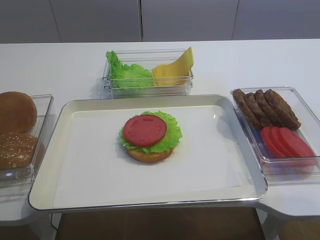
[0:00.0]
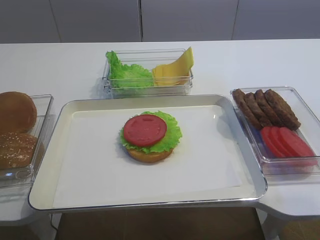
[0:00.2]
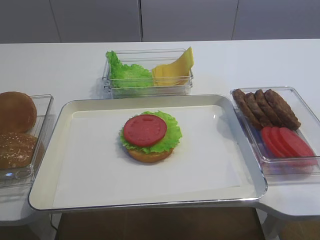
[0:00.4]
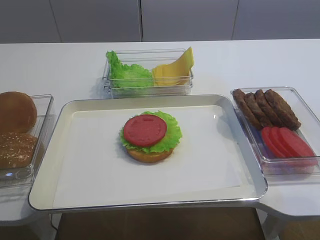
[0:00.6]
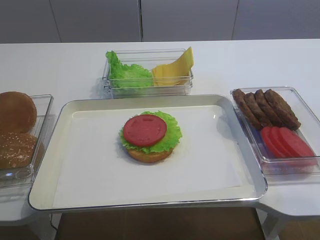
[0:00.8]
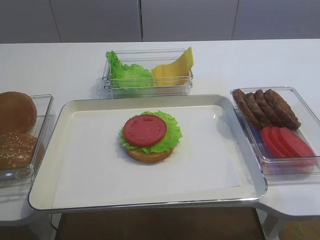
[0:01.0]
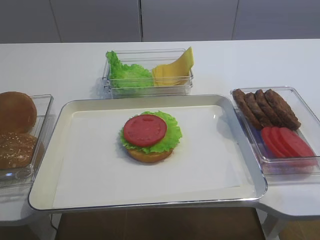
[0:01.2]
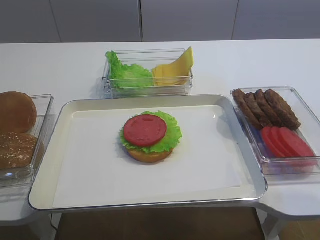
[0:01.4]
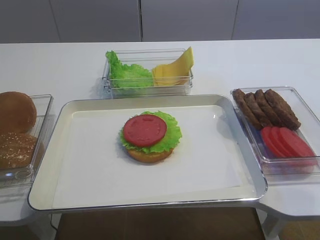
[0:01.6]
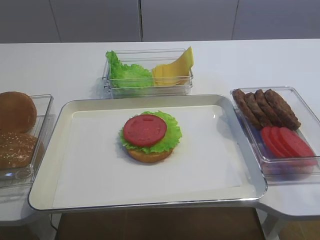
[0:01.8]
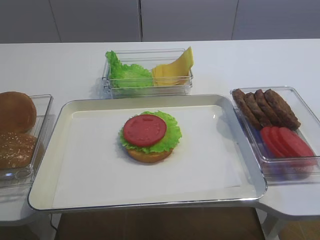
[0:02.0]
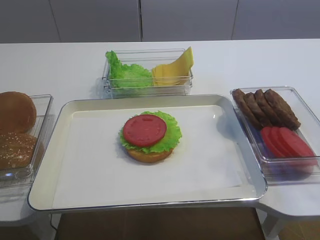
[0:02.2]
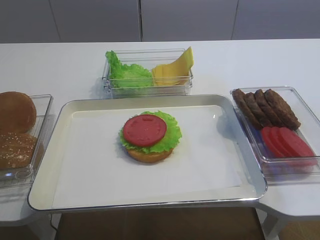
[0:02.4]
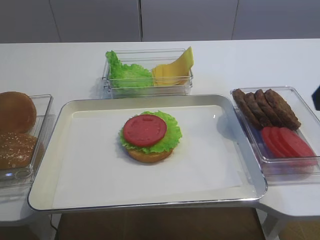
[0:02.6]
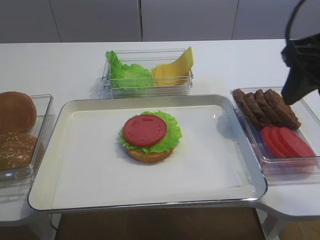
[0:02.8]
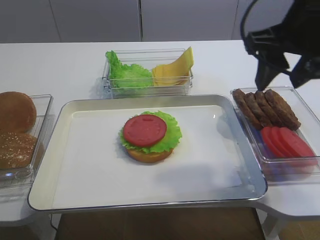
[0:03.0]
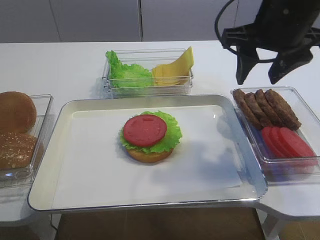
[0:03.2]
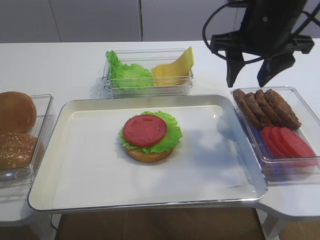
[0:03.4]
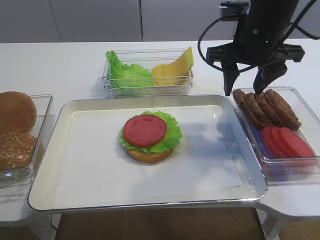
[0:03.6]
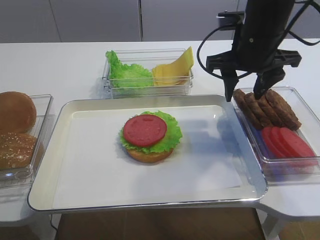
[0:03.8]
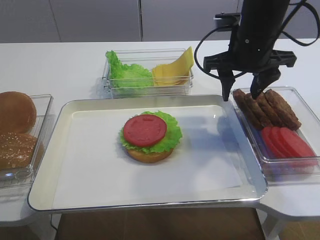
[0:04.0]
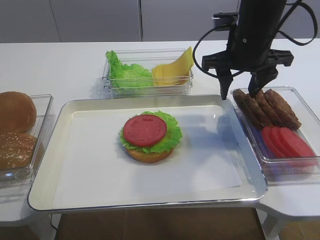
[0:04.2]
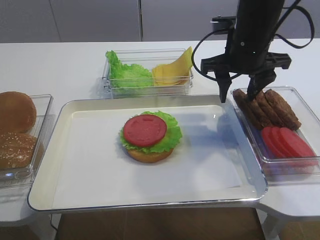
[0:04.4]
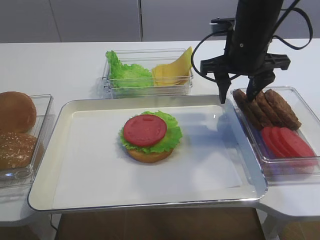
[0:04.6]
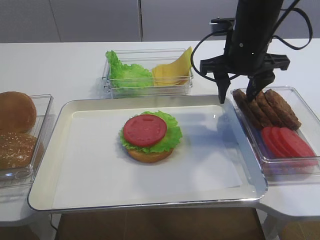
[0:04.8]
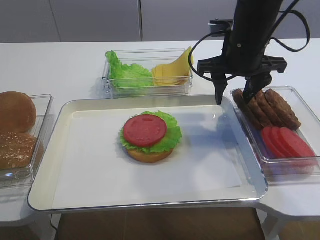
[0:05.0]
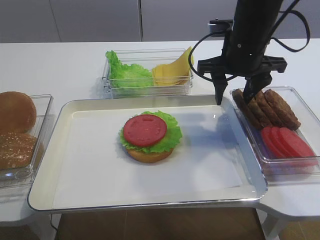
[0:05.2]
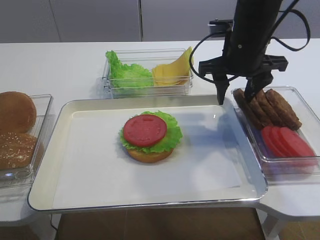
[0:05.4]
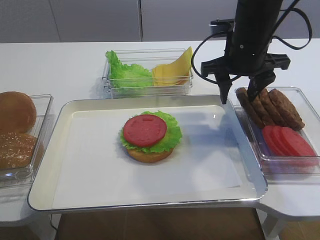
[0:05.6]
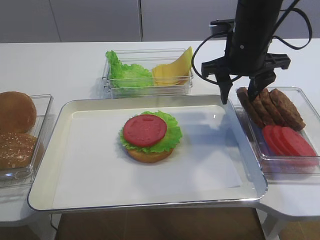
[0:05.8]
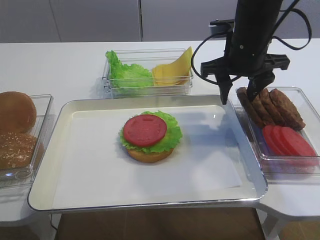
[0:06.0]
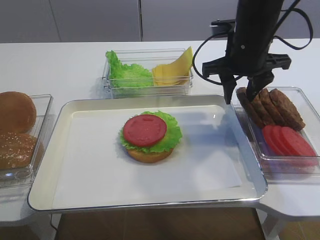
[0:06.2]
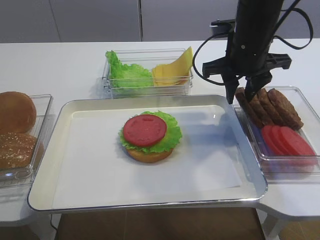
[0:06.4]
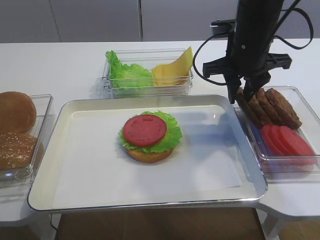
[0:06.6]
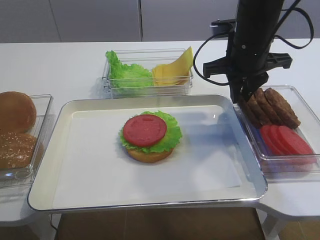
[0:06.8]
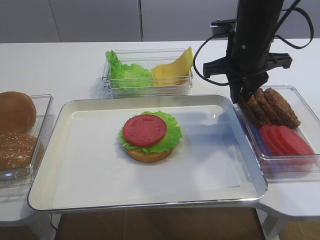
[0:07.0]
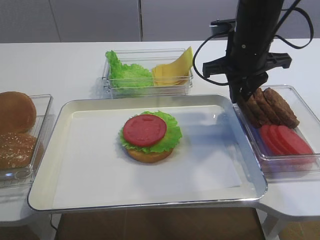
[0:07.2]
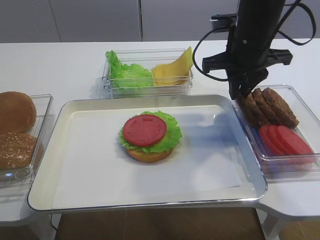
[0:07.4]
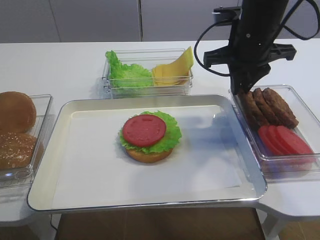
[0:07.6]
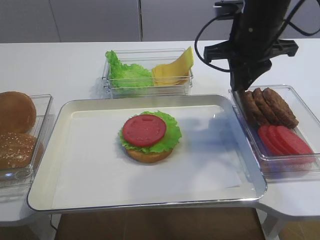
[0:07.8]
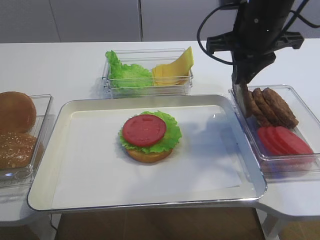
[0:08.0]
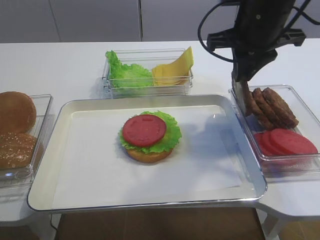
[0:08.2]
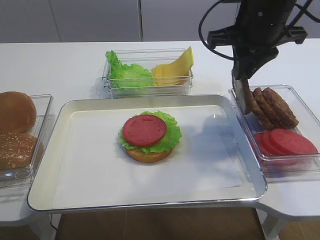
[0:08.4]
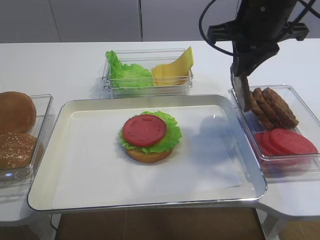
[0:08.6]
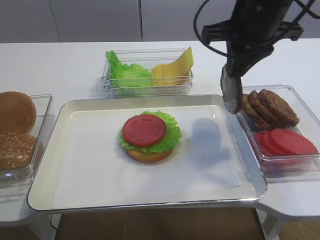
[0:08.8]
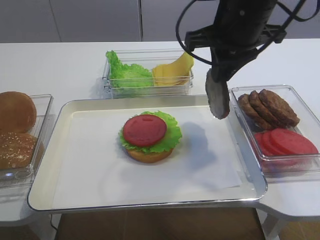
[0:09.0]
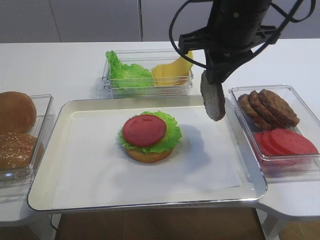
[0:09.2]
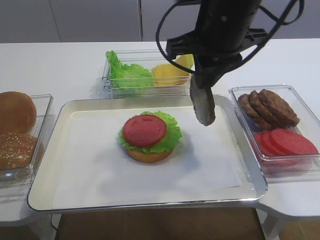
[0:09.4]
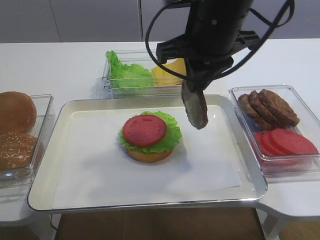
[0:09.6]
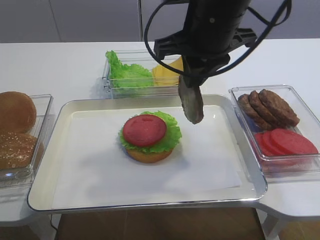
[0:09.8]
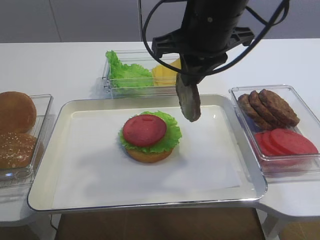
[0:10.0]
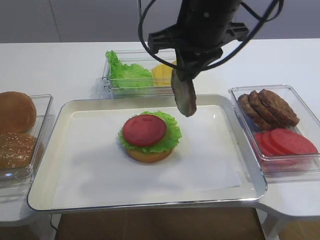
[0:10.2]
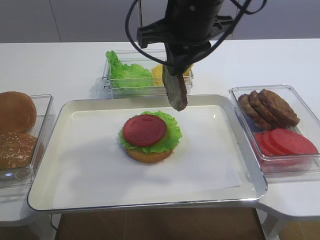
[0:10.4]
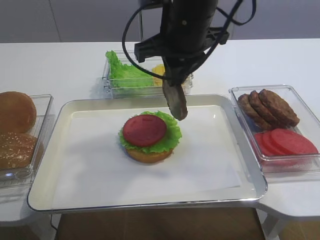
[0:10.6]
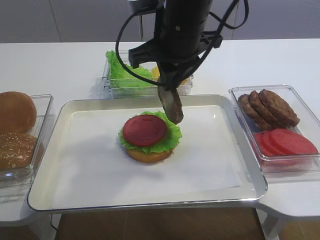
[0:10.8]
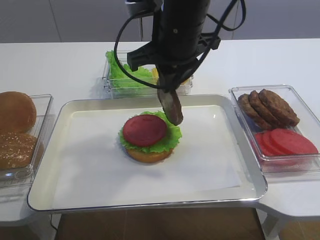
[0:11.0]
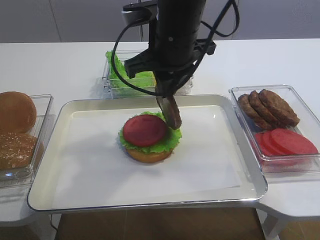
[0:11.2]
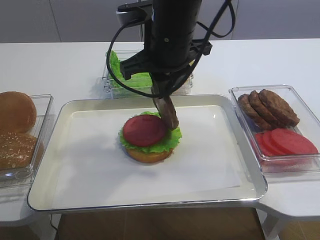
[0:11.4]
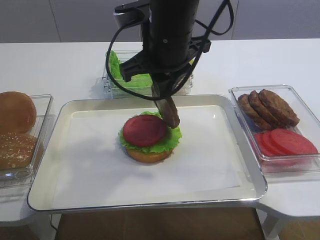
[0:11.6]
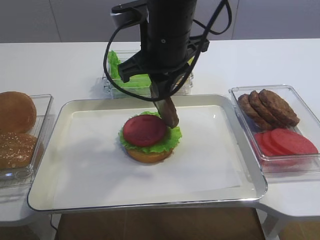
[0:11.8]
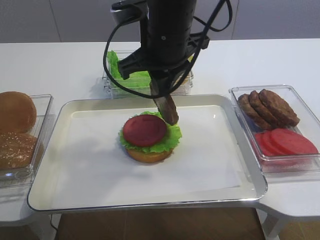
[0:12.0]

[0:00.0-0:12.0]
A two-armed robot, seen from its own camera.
Step, 0:00.0 to 0:08.8: Pick up the cutlet with the right gripper.
0:01.6 to 0:03.0: The right gripper travels forward by roughly 25 cm.
0:03.0 to 0:04.4: The right gripper is displaced forward and downward by roughly 15 cm.
0:04.4 to 0:06.0: Both grippers stay put.
0:06.0 to 0:07.6: The right gripper closes.
0:07.6 to 0:09.0: The right gripper ends up approximately 5 cm from where it was.
0:09.0 to 0:10.4: The right gripper goes about 5 cm to the left.
0:10.4 to 0:12.0: The right gripper ends up approximately 5 cm from where it was.

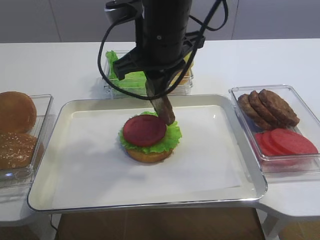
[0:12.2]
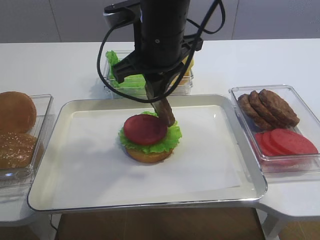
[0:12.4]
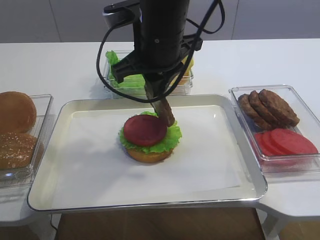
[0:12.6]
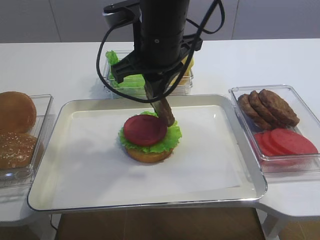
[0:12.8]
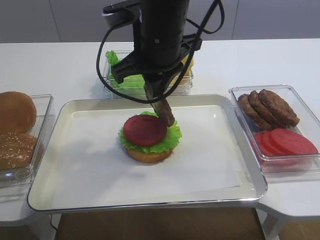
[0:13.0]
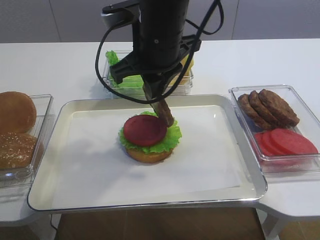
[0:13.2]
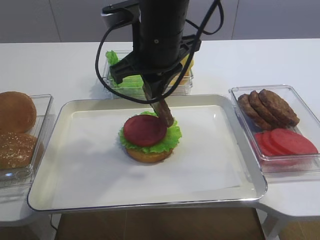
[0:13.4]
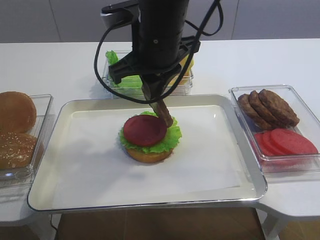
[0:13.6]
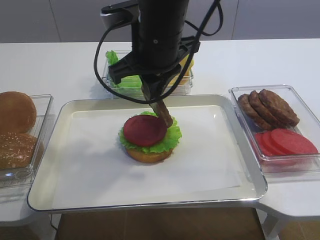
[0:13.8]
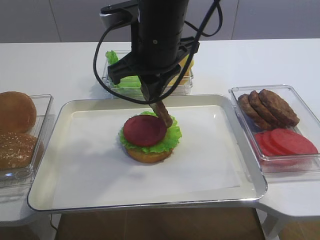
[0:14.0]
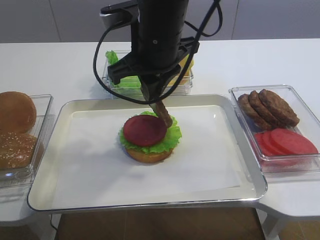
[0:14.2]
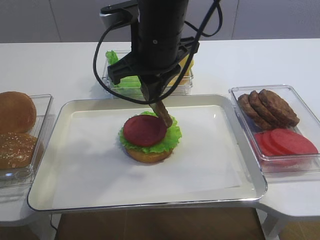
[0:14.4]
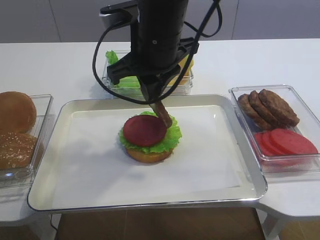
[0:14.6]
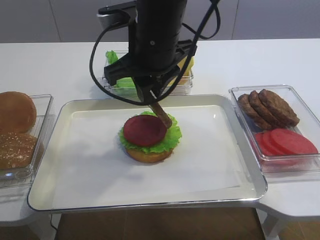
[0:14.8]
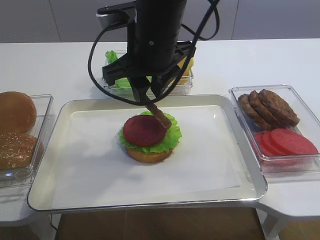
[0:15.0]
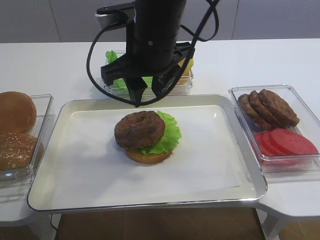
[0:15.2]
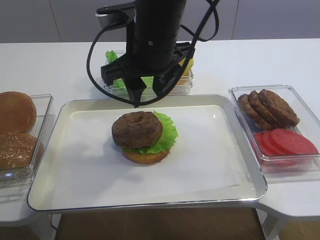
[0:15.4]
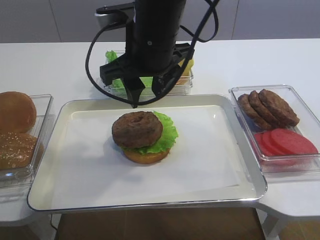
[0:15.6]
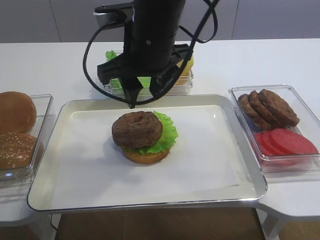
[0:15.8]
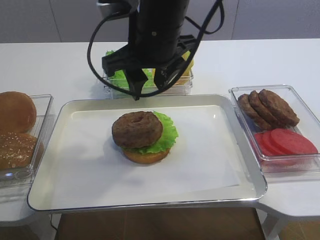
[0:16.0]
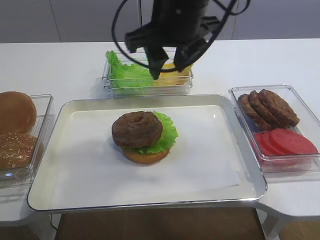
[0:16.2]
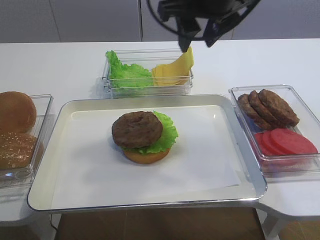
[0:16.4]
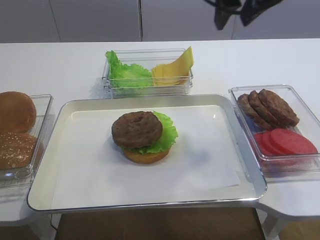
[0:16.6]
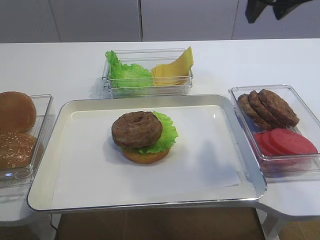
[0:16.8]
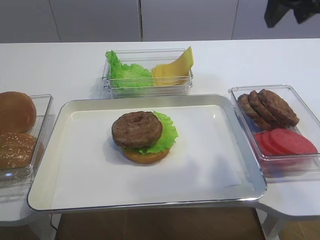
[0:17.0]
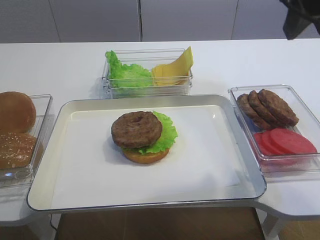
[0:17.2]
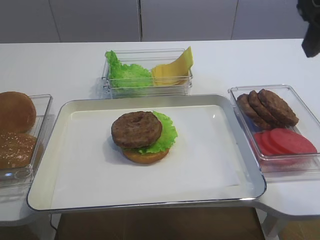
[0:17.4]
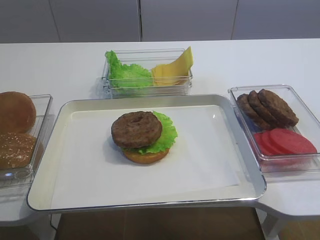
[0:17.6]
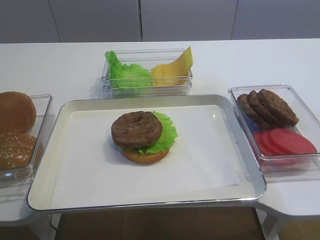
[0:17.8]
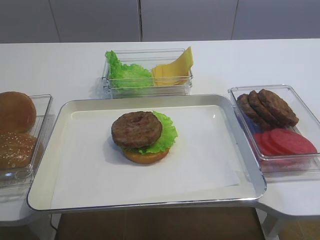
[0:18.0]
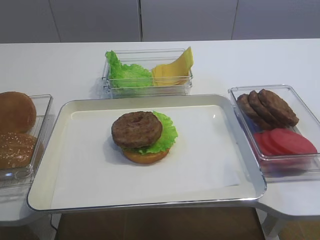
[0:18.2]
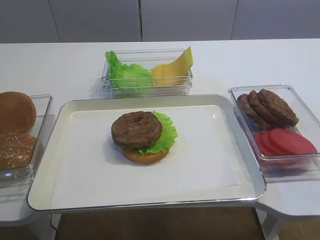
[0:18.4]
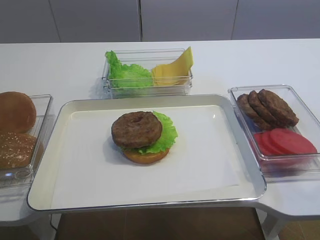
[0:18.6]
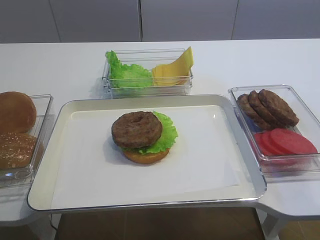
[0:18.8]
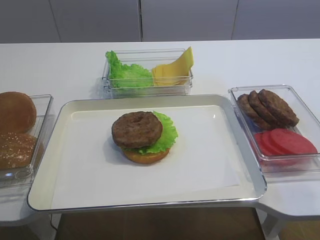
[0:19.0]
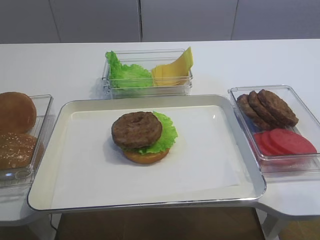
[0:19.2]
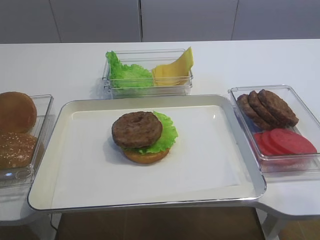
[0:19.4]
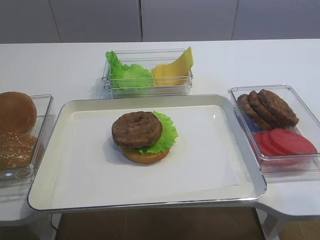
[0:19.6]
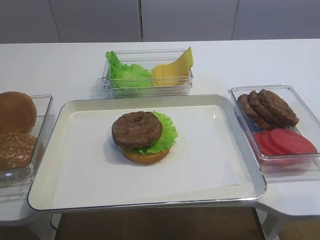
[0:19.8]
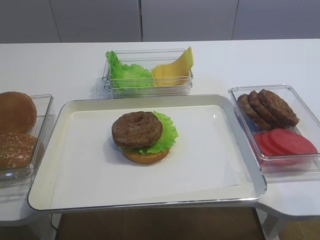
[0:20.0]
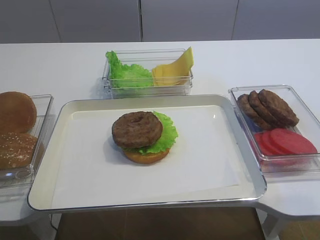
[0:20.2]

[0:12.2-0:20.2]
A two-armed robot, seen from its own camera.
Step, 0:12.2 to 0:15.2: Place the cutlet on the tomato slice with the right gripper.
0:12.2 to 0:13.8: The two grippers keep their place.
0:13.8 to 0:15.4: The right gripper opens.
0:15.4 to 0:17.0: The right gripper goes roughly 20 cm to the right and upward.
0:17.0 to 0:18.6: The right gripper heads backward, covering some 25 cm.

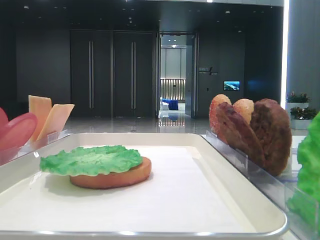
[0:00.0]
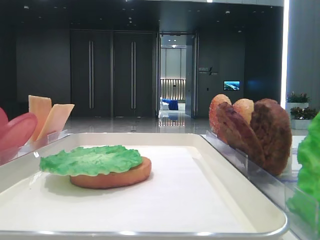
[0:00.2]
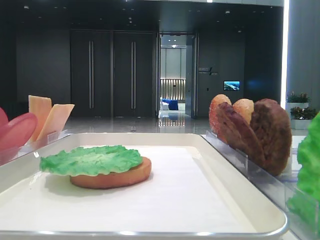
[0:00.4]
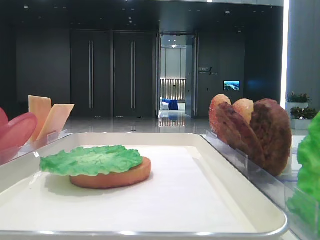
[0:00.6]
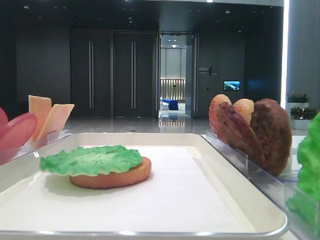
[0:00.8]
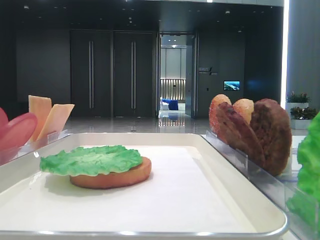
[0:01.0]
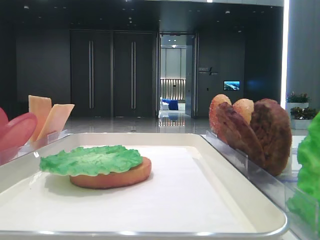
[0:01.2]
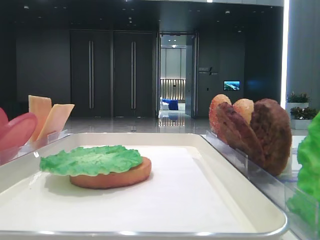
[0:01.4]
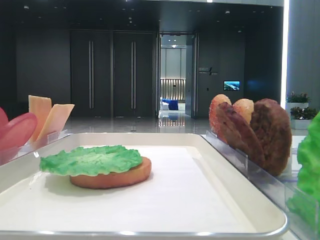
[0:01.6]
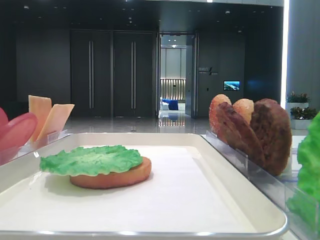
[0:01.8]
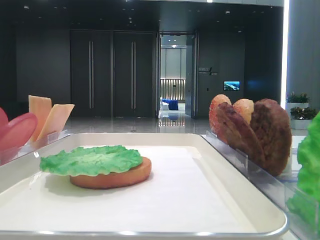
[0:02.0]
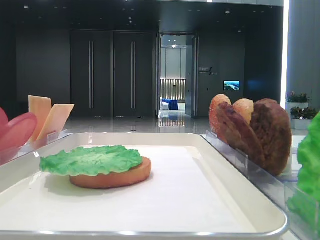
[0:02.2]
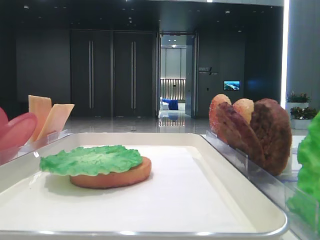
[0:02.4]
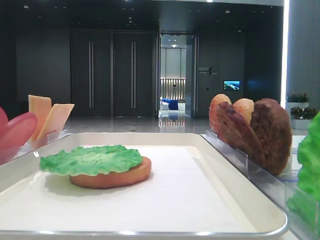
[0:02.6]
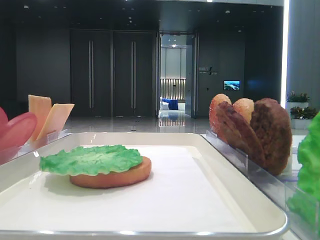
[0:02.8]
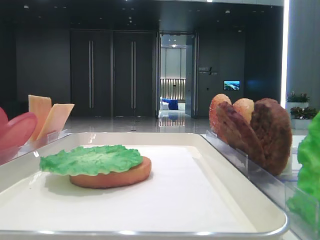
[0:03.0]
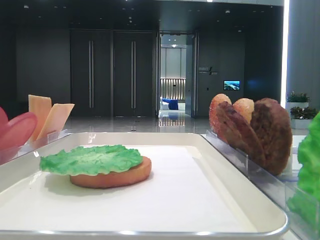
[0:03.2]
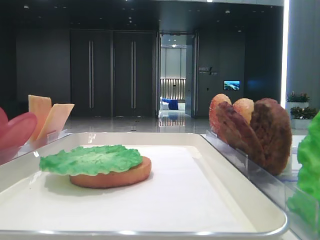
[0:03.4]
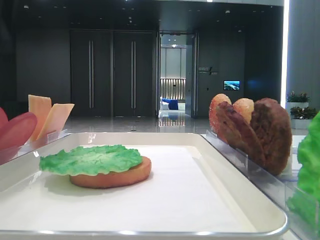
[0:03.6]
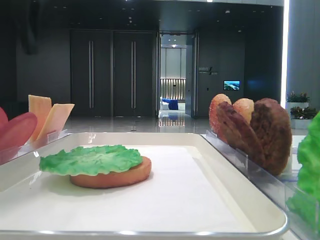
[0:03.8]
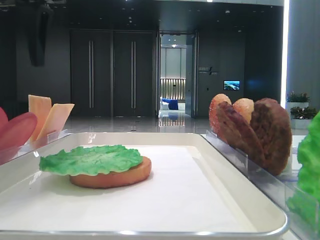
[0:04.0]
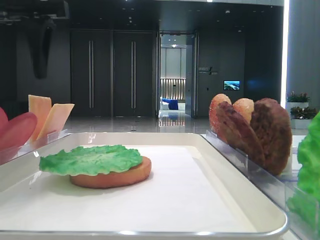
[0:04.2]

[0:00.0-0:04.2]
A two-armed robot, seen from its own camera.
0:02.8 to 0:04.2: The left gripper shifts roughly 15 cm to the right and forward.
